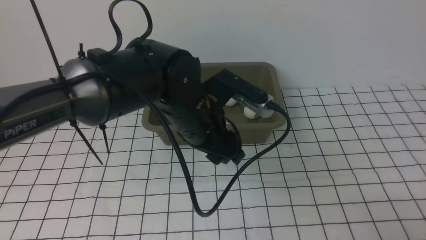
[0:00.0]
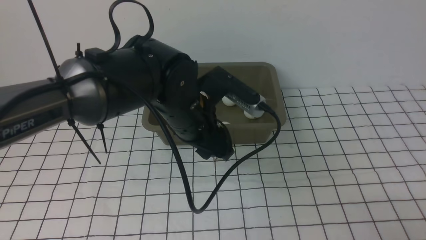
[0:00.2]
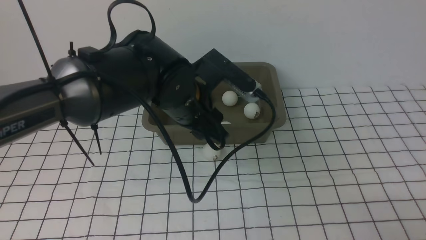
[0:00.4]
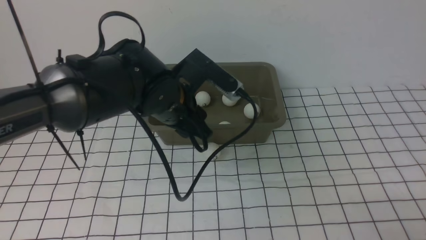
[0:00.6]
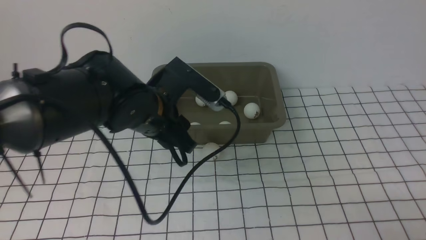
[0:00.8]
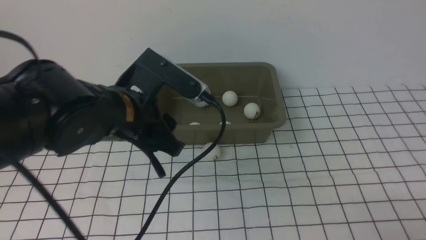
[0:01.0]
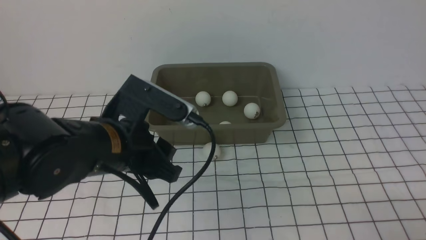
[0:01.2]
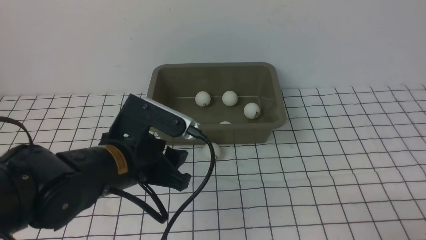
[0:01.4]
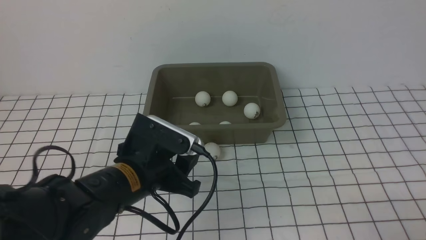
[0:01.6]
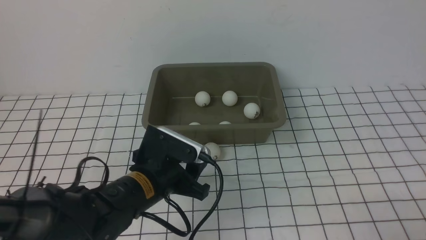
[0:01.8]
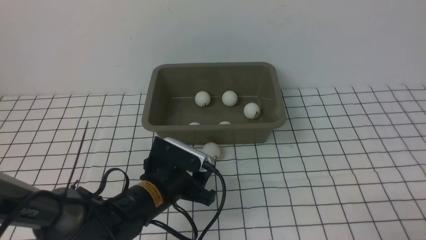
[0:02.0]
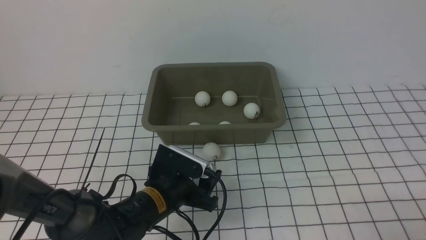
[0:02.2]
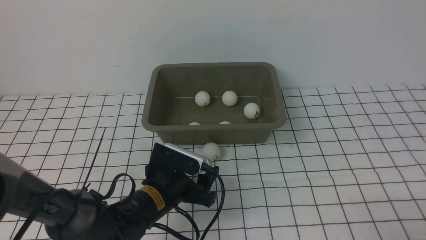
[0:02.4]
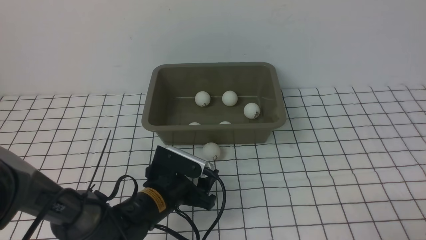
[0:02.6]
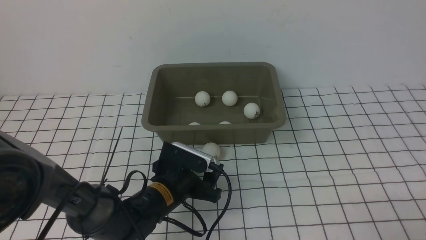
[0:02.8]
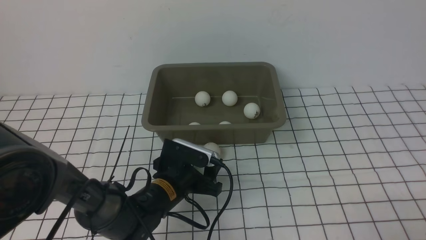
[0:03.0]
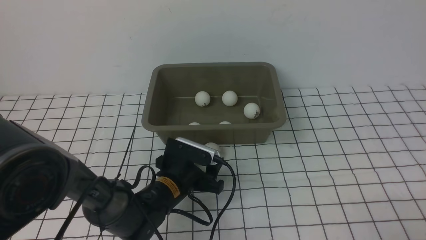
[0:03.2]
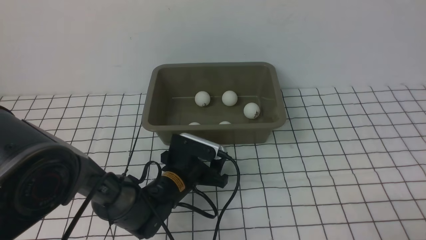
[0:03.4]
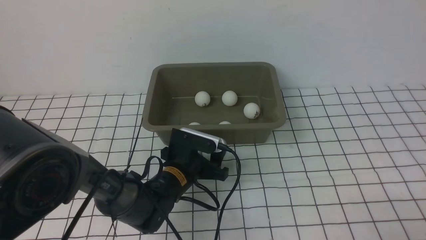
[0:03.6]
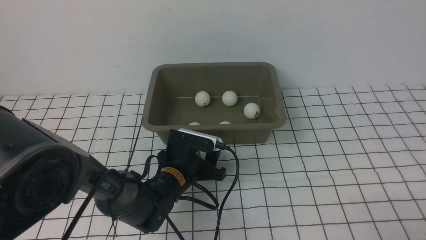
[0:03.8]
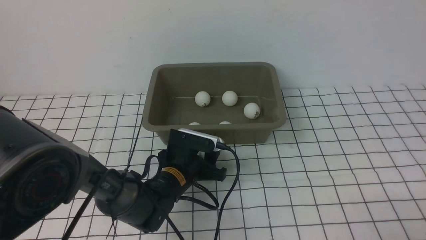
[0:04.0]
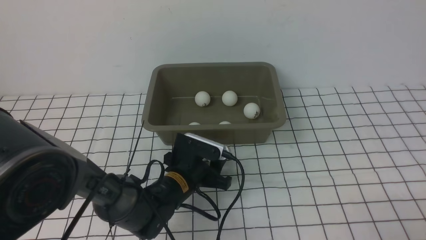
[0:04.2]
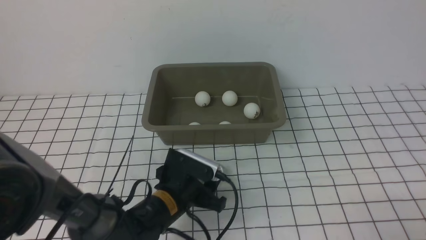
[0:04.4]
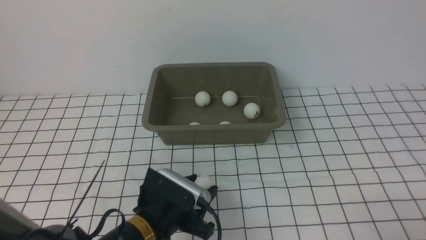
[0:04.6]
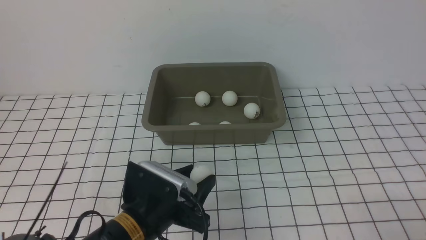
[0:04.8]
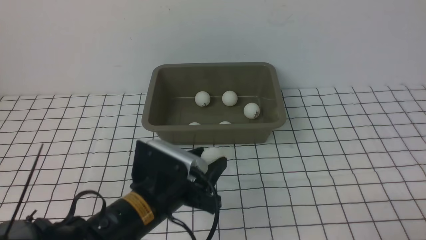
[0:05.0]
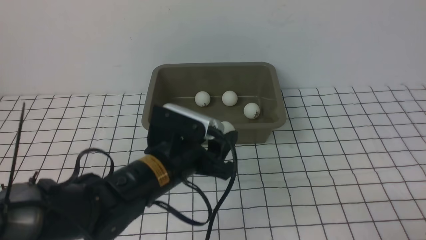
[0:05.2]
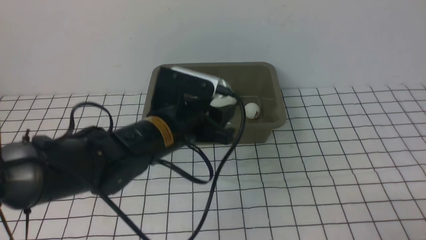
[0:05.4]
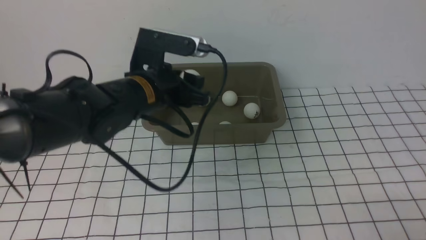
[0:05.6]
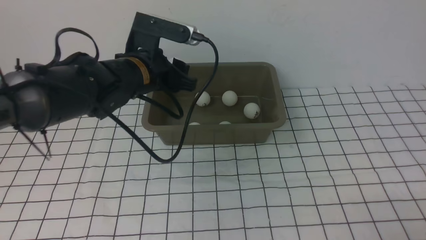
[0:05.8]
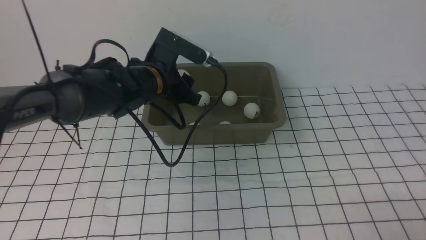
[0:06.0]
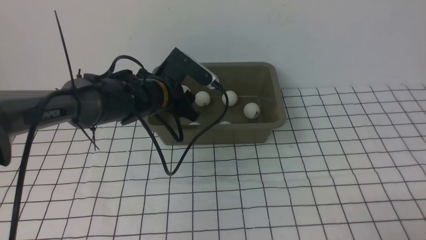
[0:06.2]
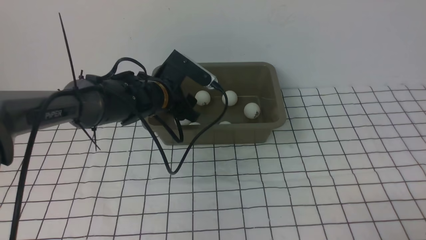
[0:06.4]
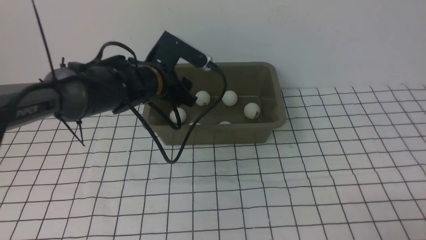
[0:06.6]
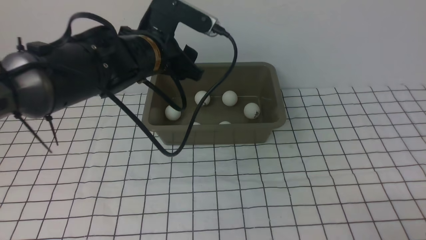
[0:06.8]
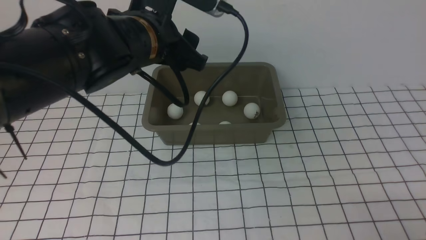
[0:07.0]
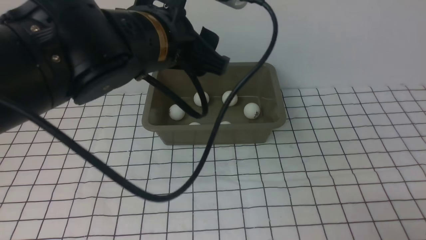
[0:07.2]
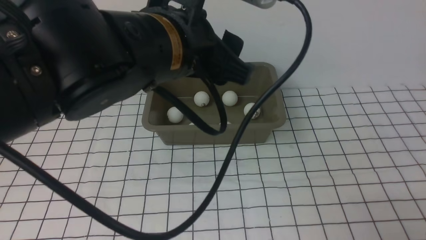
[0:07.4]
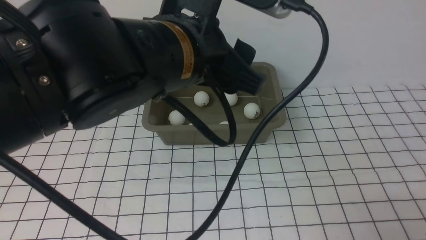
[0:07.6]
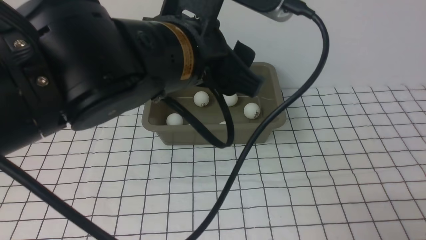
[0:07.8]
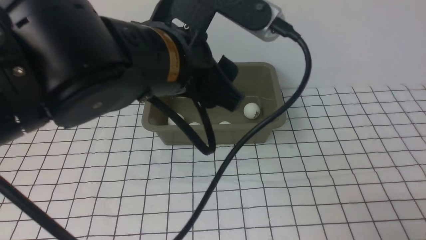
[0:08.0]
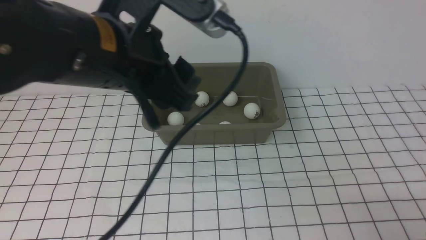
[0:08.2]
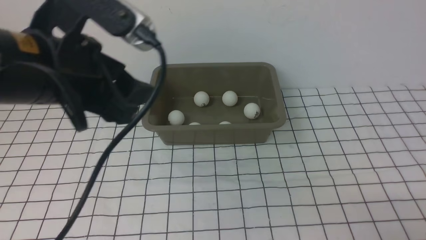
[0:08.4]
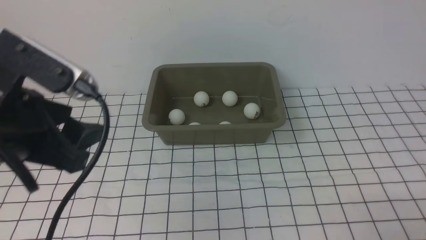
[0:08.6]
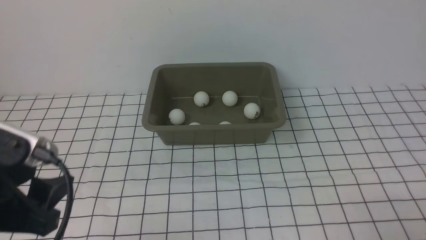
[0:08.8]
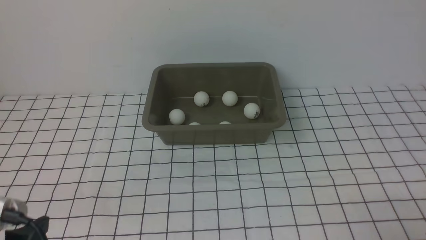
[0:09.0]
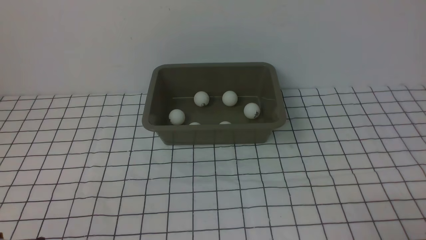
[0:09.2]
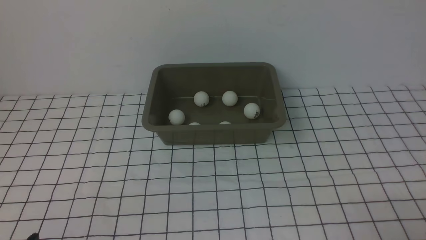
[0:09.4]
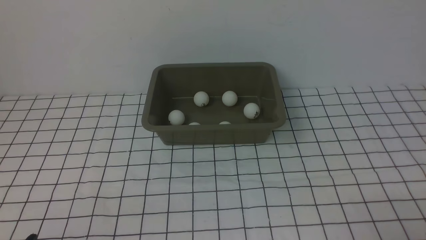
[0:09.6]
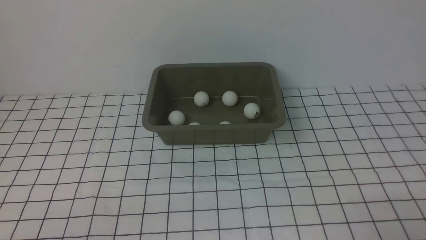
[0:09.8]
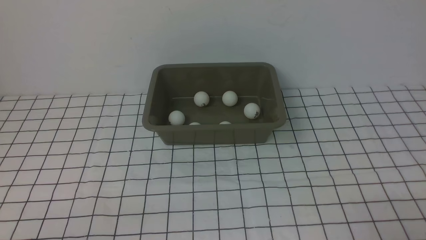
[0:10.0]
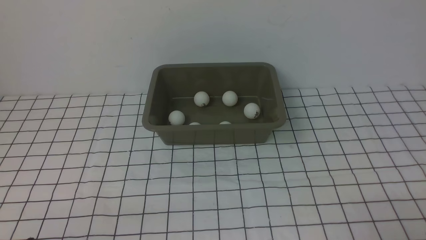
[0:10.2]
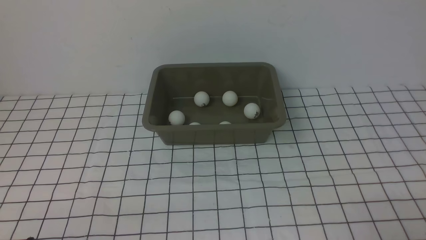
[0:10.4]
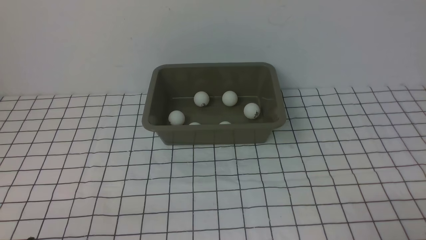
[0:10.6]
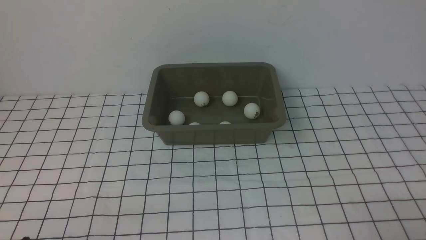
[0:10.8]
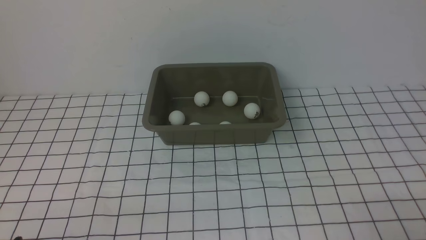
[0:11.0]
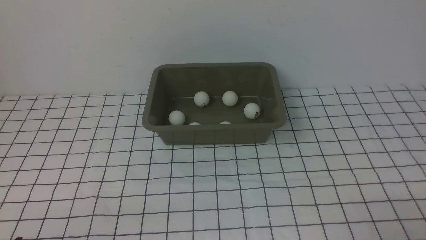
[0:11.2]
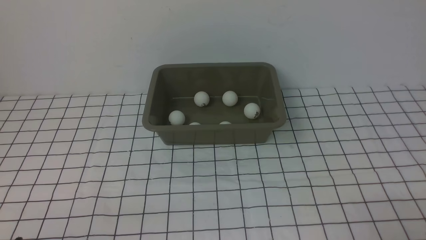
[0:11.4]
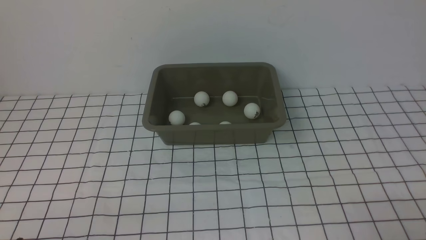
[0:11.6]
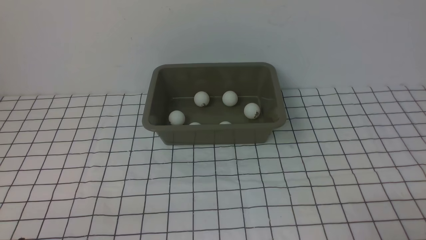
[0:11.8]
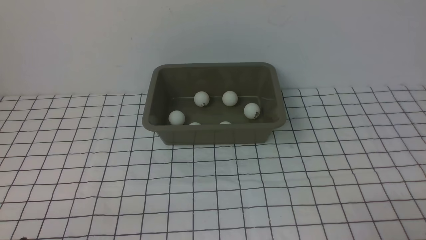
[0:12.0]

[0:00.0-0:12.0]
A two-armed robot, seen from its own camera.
Step, 0:00.0 to 0:04.4: use the left arm to clamp the table tennis ball closest to it.
Step, 0:04.6 to 0:06.4: use the left arm to put the table tennis ball into the box.
0:00.0 to 0:01.6: The left gripper heads downward, to the left and backward, covering roughly 15 cm.
0:01.6 to 0:03.0: The left gripper heads downward and forward, covering about 10 cm, and opens its fingers.
0:03.0 to 0:04.4: The left gripper is displaced backward and upward by roughly 10 cm, and closes.
0:04.4 to 0:06.0: The left gripper is displaced forward by about 20 cm, and opens.
0:06.0 to 0:07.6: The left gripper shifts roughly 25 cm backward and upward.
0:07.6 to 0:09.0: The left gripper is displaced to the left, backward and downward by roughly 30 cm.
0:09.0 to 0:10.4: The left gripper travels downward by roughly 10 cm.
0:10.4 to 0:12.0: Both grippers stay about where they are.

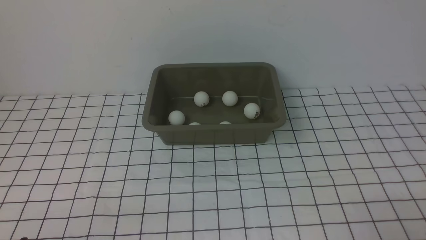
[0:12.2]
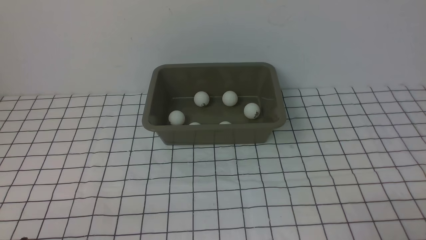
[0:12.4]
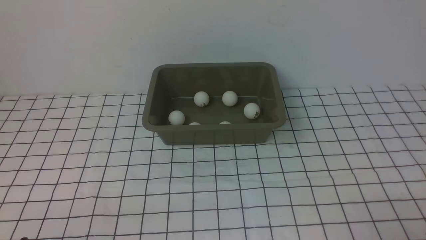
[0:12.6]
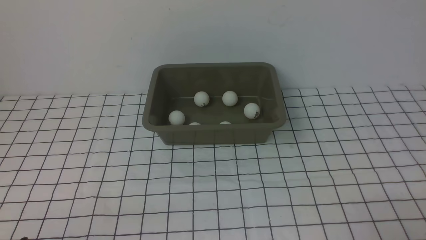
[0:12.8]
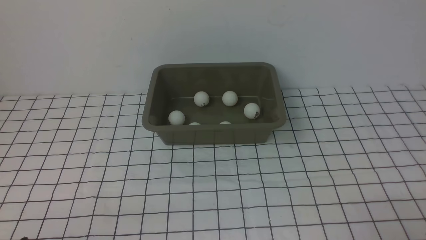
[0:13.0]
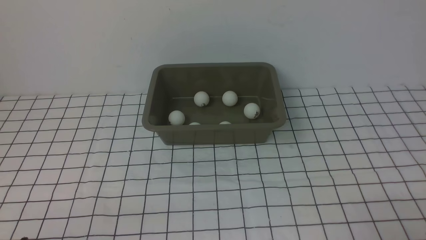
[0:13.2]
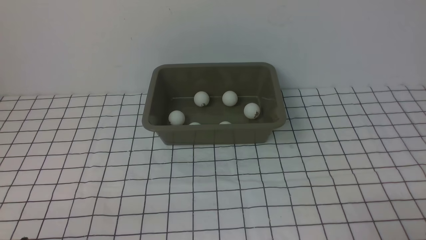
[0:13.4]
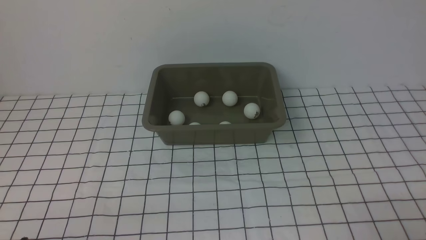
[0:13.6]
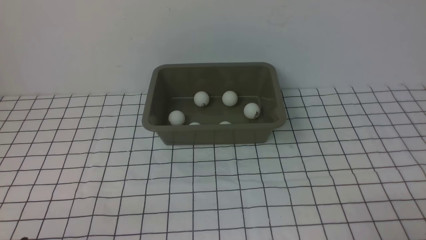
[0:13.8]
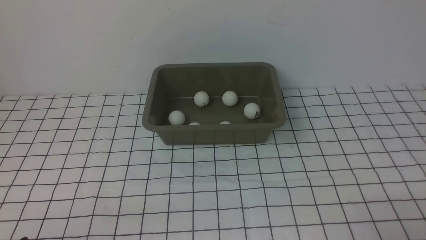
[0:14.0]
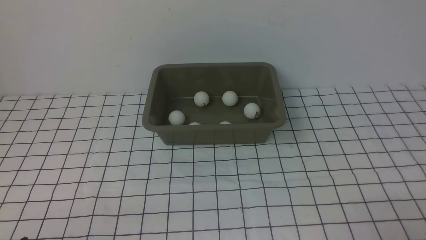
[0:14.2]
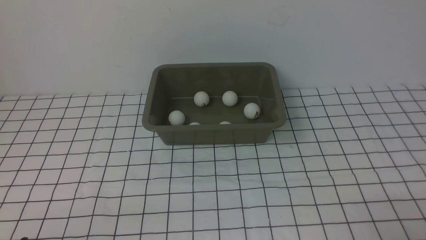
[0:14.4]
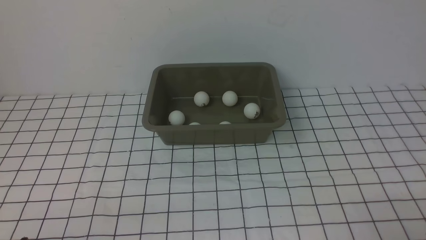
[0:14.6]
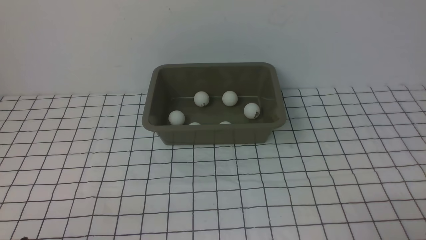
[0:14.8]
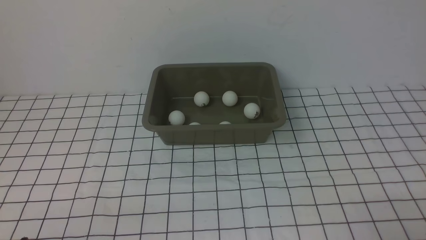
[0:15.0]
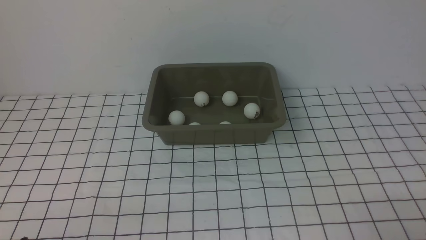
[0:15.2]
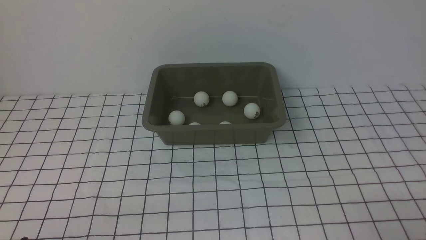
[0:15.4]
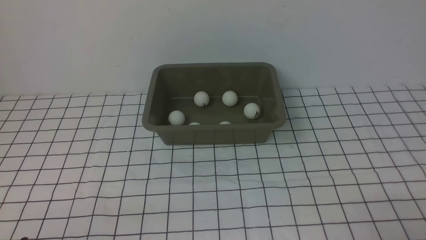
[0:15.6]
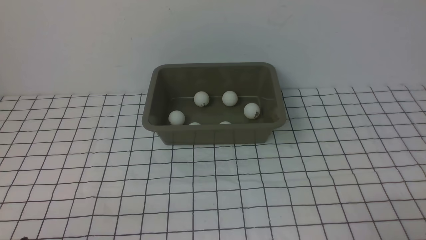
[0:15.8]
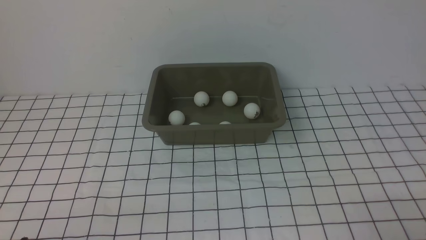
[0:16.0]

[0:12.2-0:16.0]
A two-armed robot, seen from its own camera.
0:12.2 to 0:16.0: Neither gripper changes place.
